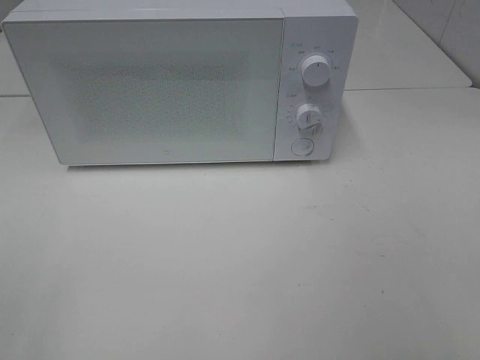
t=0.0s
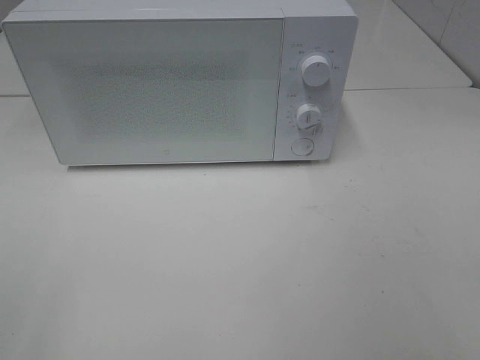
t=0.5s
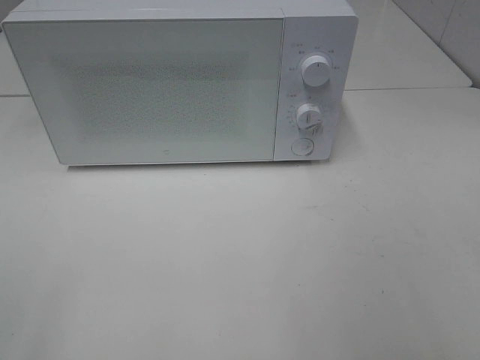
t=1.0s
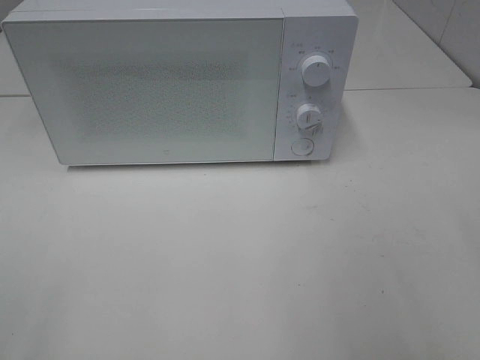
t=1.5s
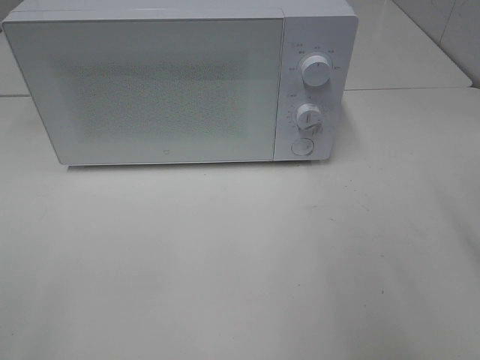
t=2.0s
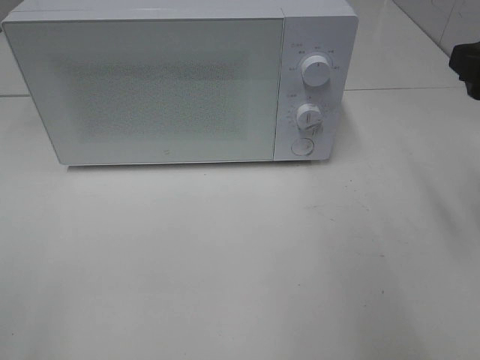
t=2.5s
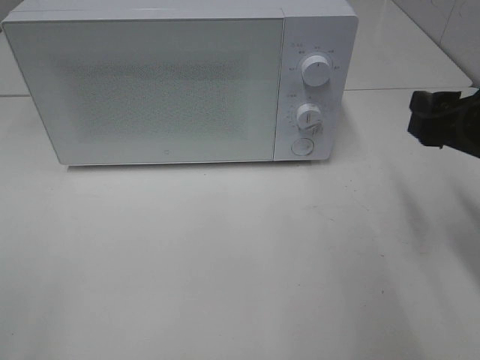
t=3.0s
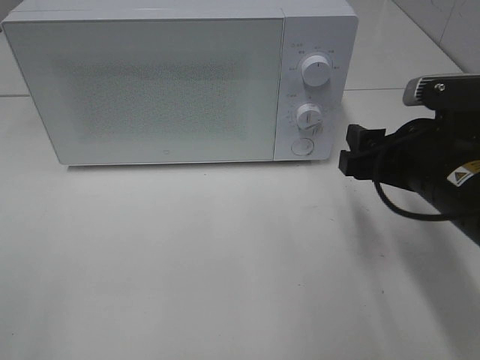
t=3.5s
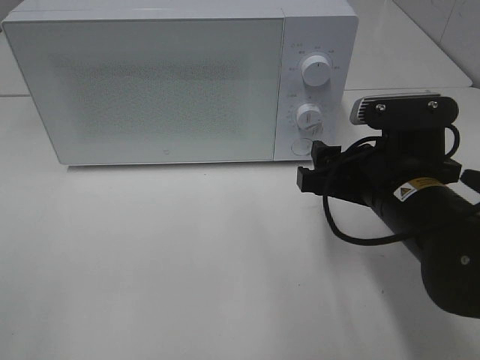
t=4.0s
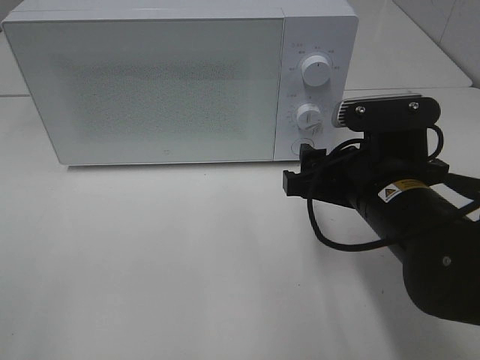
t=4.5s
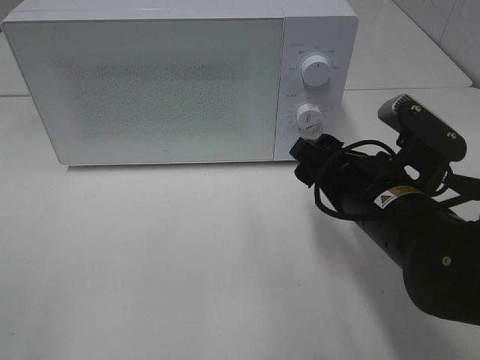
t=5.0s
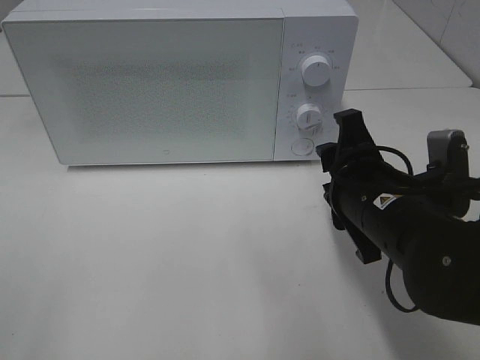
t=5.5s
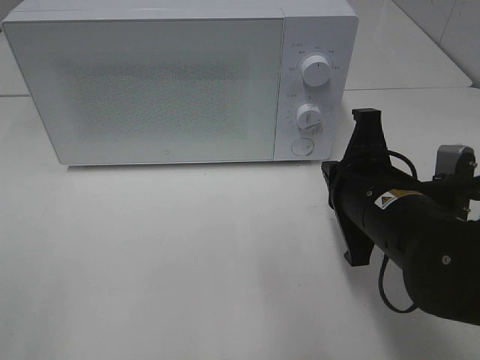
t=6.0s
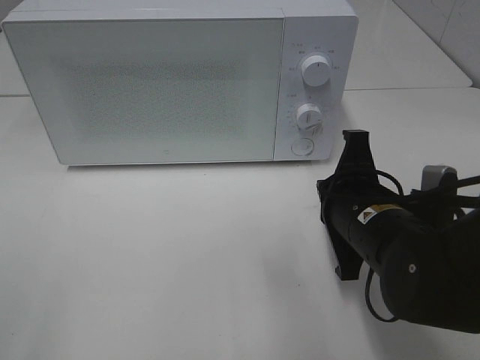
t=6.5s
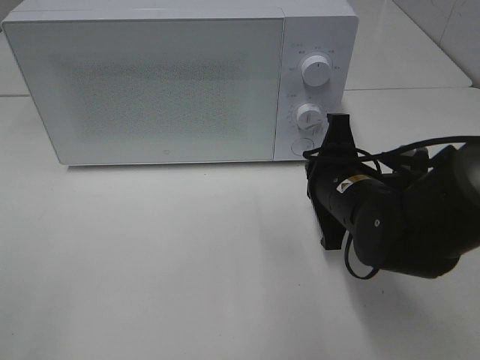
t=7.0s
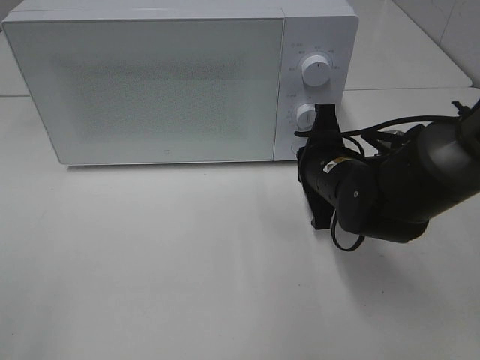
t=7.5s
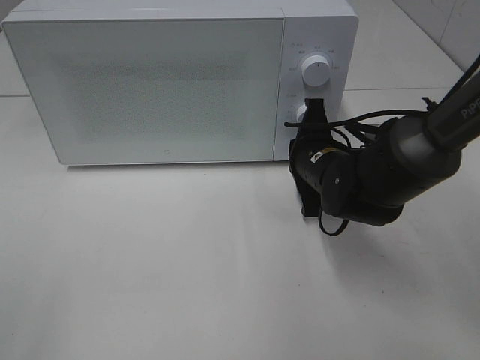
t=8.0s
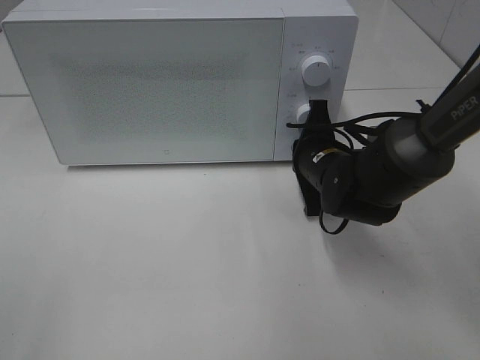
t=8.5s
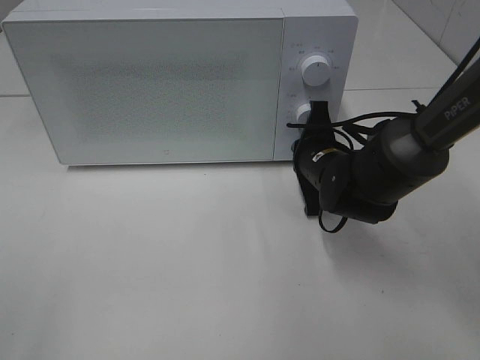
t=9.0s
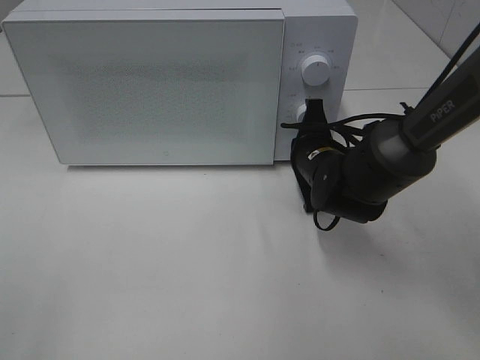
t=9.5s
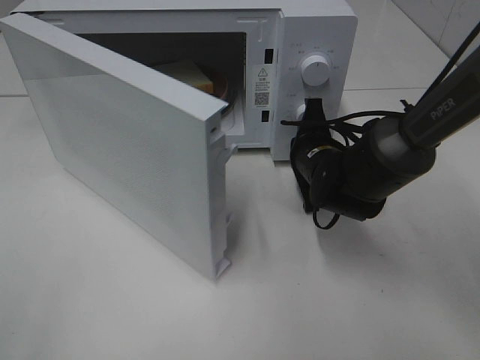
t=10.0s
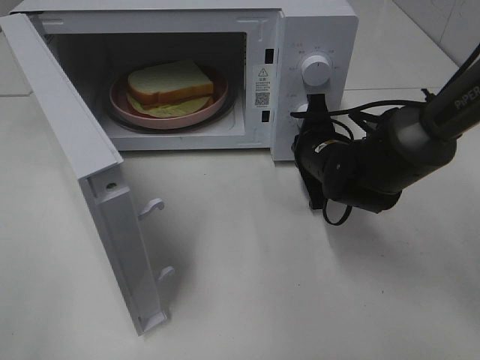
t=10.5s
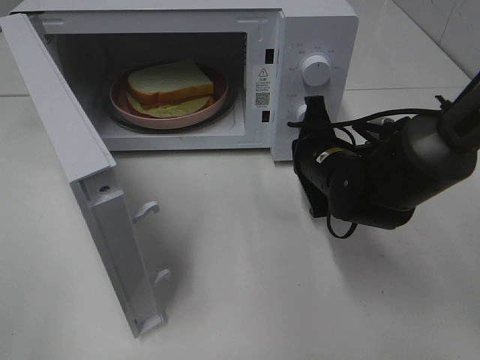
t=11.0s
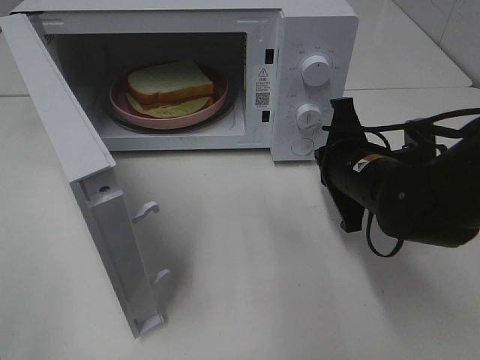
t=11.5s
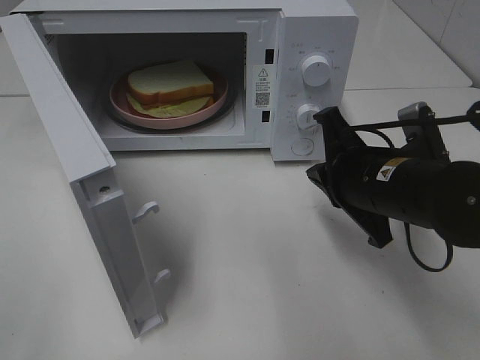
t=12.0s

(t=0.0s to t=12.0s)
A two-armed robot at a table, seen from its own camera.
Task of the whole recording: Heat Sandwich.
Step, t=0.0s - t=10.0s: Right hand: press the switch.
t=2.0s - t=4.0s: The right gripper heads downward, to the left and forward, covering about 20 cm.
t=4.0s - t=6.0s: The right gripper closes up.
t=6.0s - t=8.0s: The right gripper moves forward and downward, roughly 15 cm.
t=10.0s - t=12.0s: The right gripper travels backward and upward by roughly 15 cm.

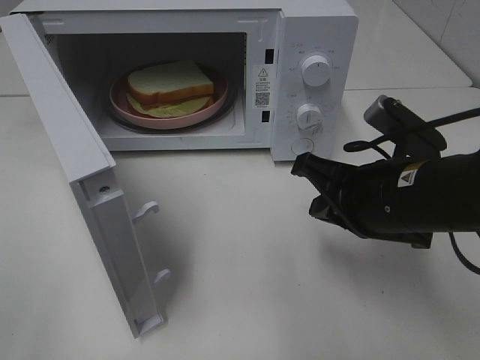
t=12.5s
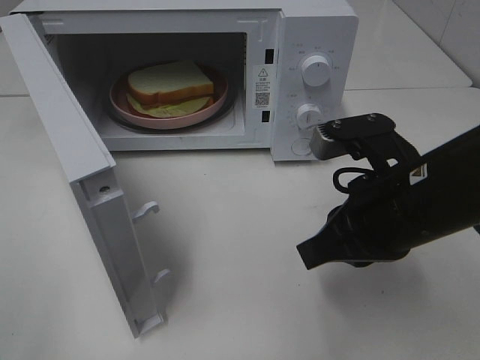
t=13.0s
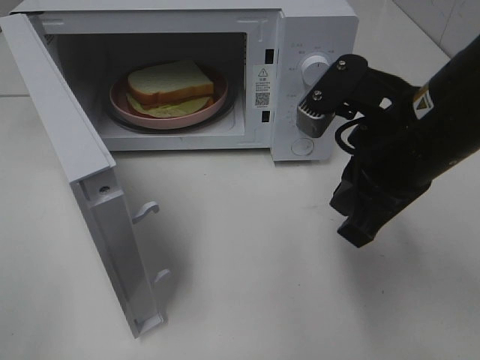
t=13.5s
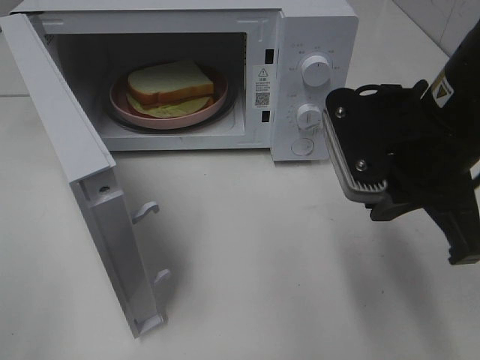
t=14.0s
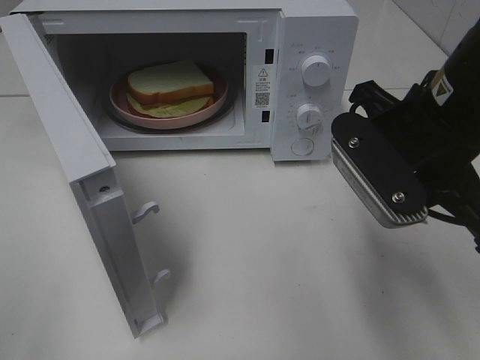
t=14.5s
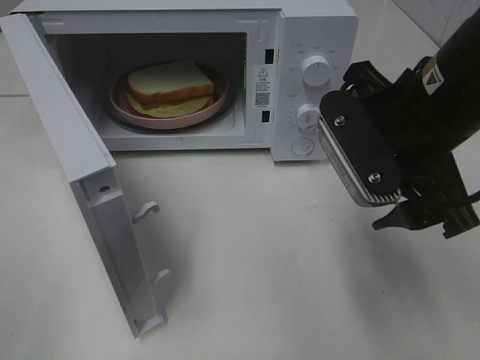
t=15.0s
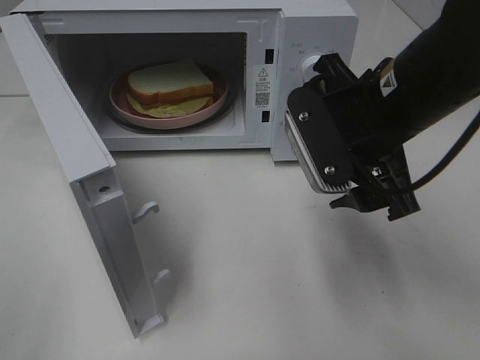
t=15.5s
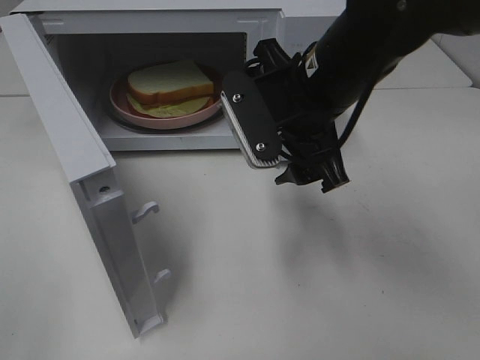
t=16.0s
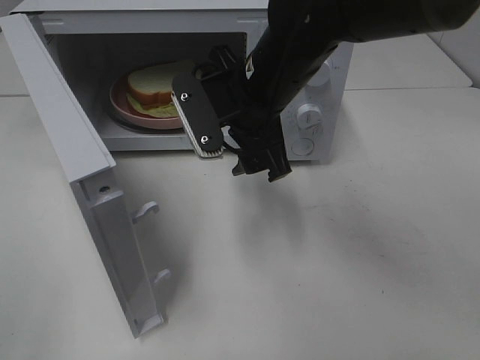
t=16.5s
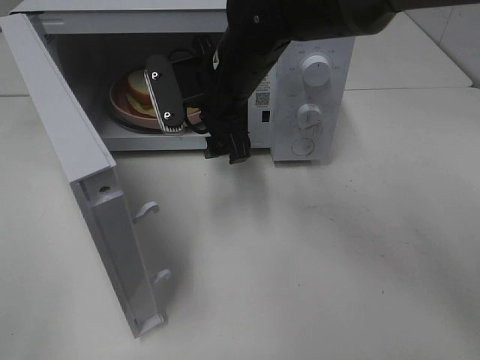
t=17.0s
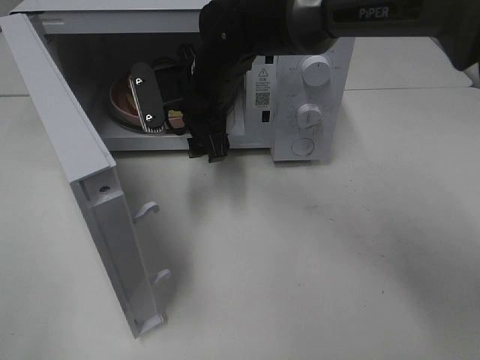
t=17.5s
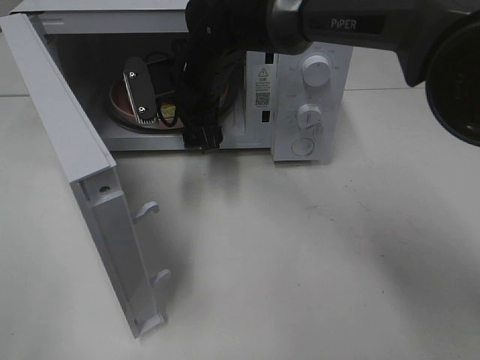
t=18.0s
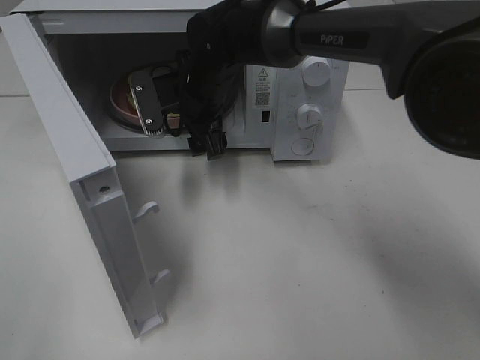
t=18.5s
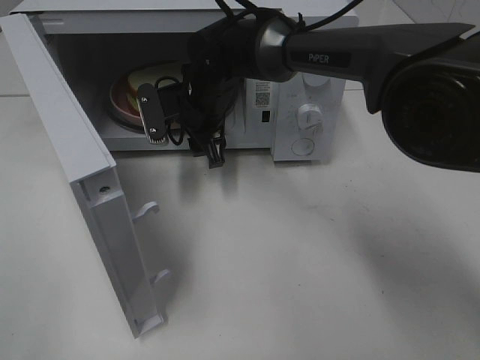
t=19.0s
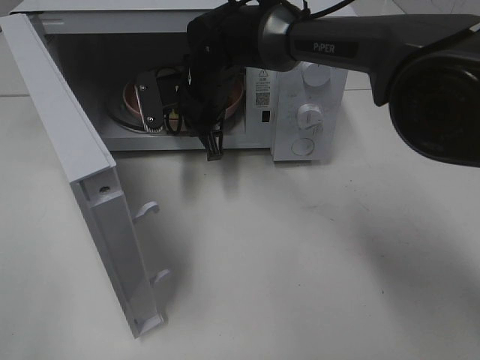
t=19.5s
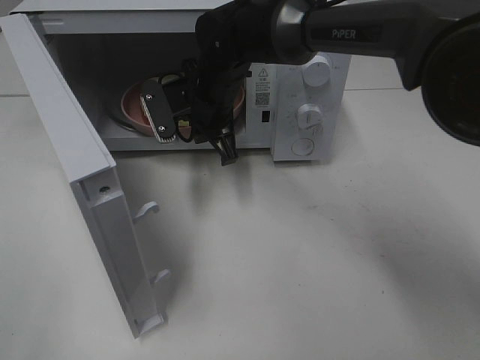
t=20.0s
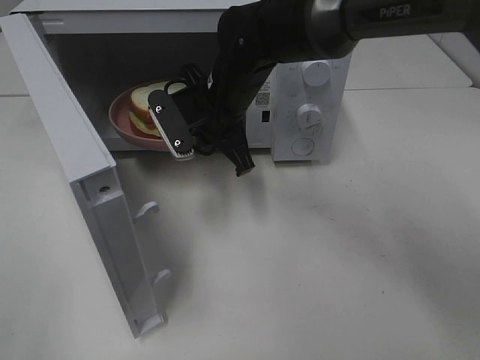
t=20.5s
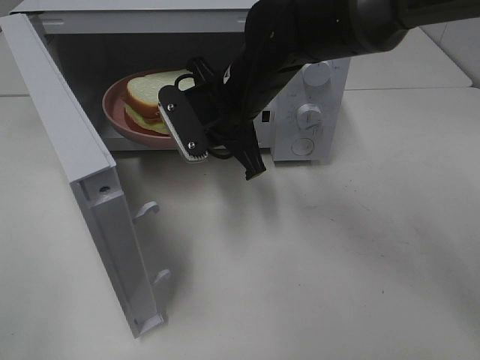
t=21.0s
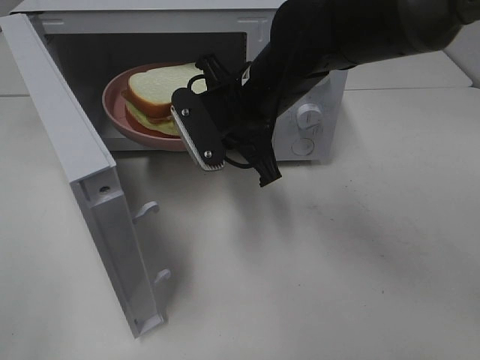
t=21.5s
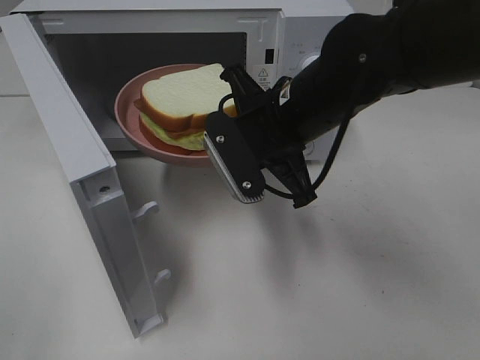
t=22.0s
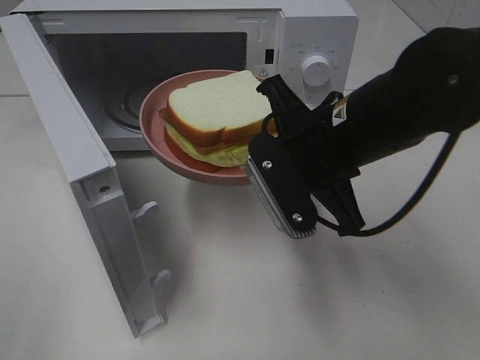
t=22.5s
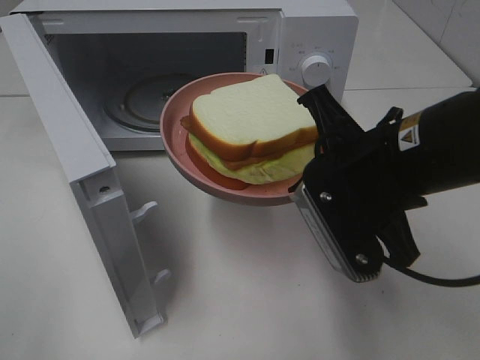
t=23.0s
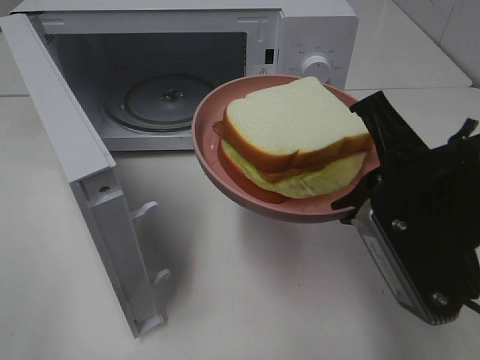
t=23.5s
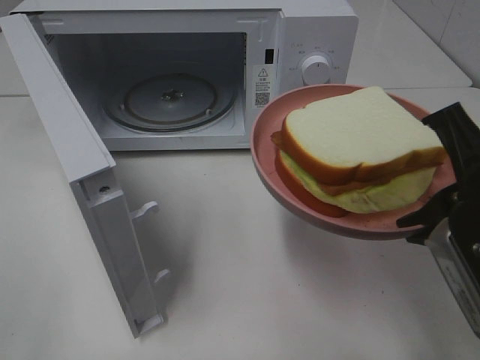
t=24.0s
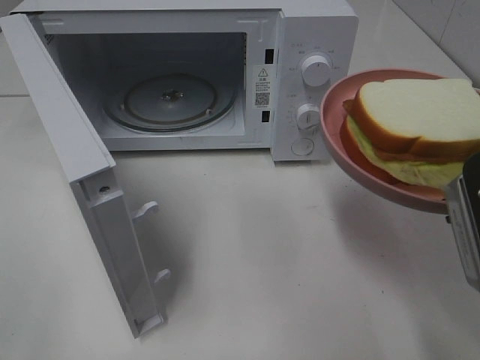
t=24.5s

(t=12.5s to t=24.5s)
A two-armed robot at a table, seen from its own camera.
Task of the whole recording: Heat Sandwich.
Step, t=12.5s - t=19.0s: Right hand: grab the plate with the sandwich.
t=12.5s - t=14.5s: The right gripper travels upward by about 10 cm.
t=14.5s - t=16.5s: The right gripper heads to the left and forward, covering some 15 cm, and opens.
t=16.5s - t=18.5s: The right gripper travels forward, to the left and downward by some 15 cm.
t=18.5s - t=20.5s: The right gripper shifts by approximately 5 cm, and closes up.
t=20.5s - t=22.5s: The right gripper travels backward and to the right by about 15 cm.
t=22.5s - t=24.5s: The right gripper goes roughly 15 cm to the right and backward.

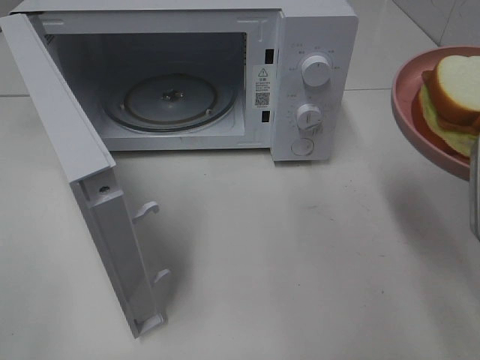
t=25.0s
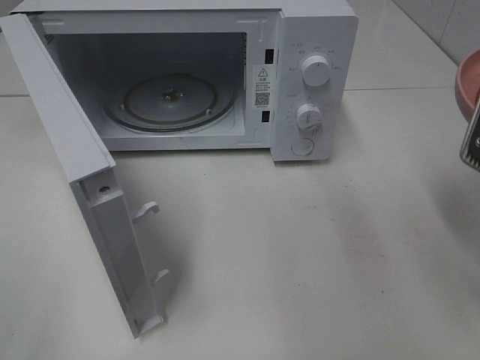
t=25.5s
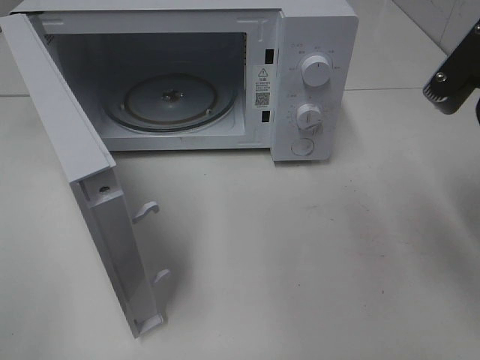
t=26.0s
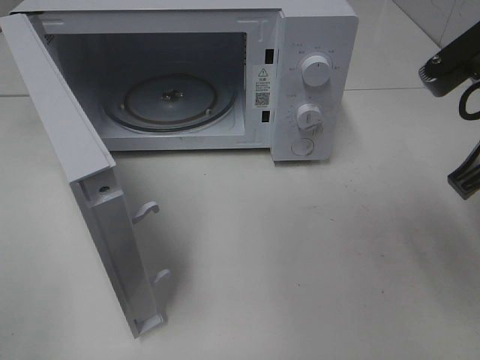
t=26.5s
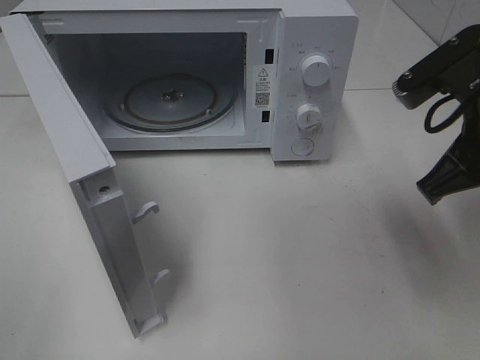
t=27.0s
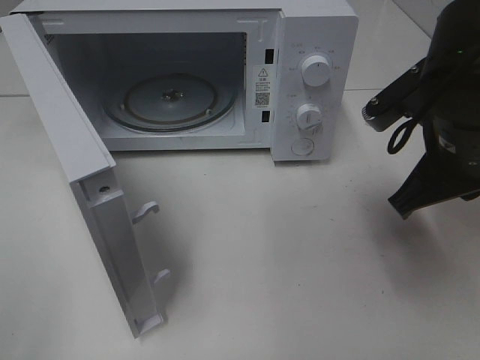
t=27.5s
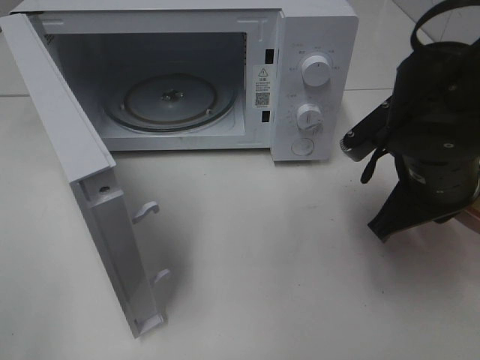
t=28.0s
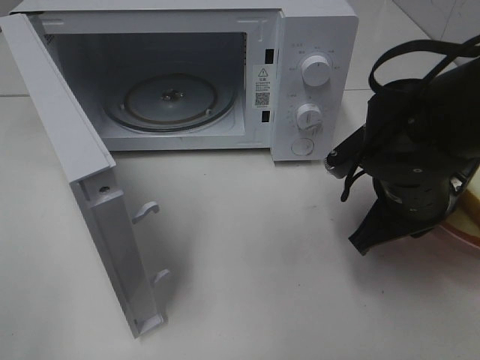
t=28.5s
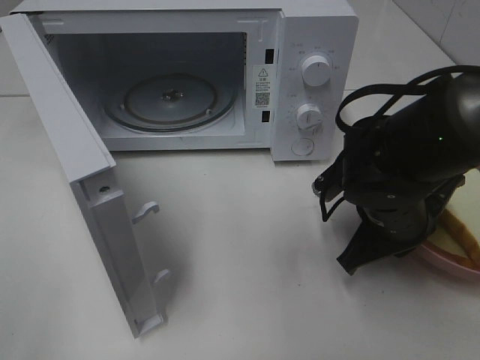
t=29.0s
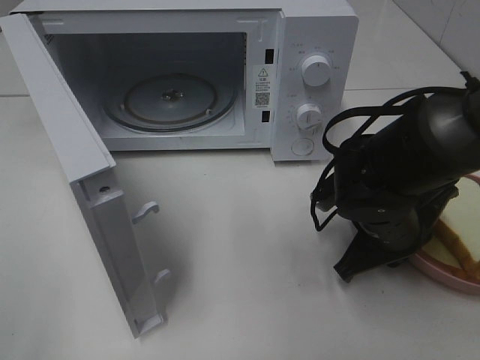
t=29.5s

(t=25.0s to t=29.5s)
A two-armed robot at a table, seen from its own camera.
Task of the whole recording: Heat Sandwich.
t=25.0s - t=27.0s: The right gripper shifts about 10 cm forward.
t=27.0s - t=29.5s: The right gripper heads downward, covering approximately 15 cm.
